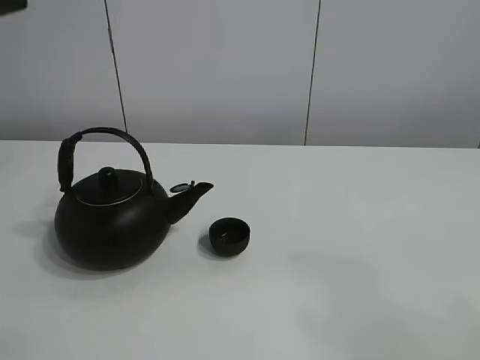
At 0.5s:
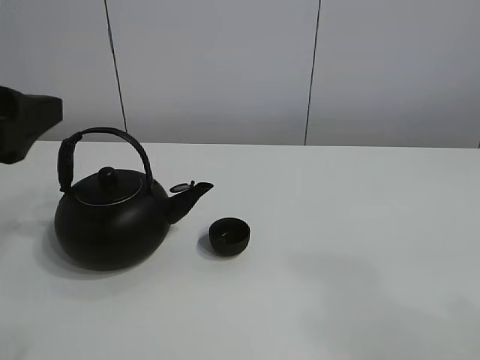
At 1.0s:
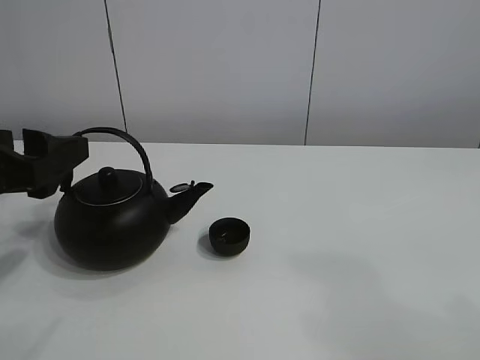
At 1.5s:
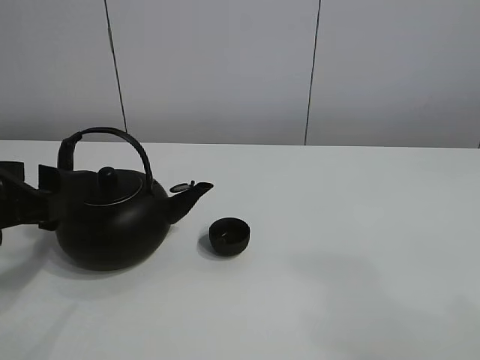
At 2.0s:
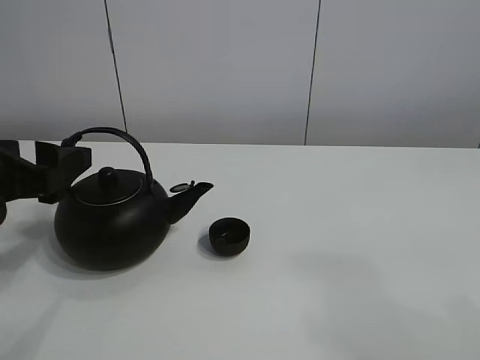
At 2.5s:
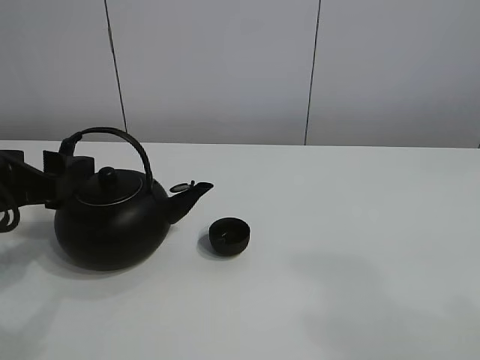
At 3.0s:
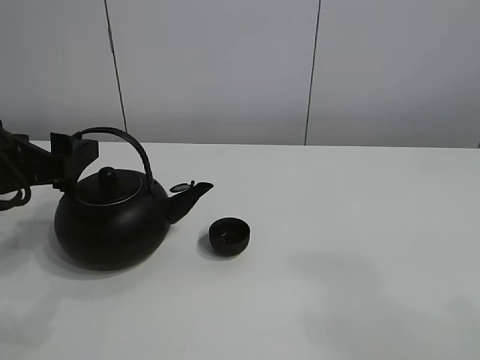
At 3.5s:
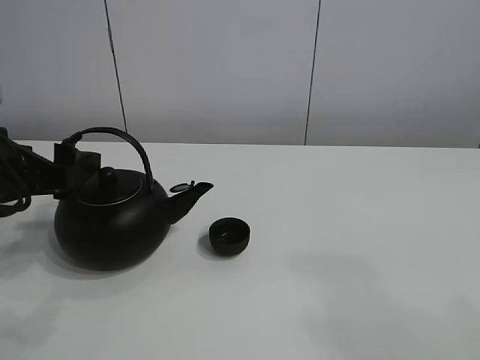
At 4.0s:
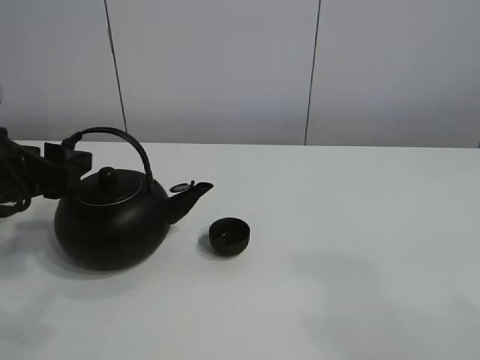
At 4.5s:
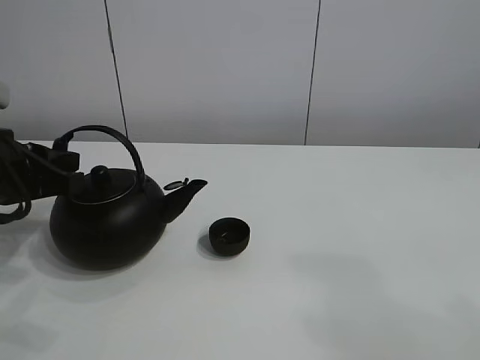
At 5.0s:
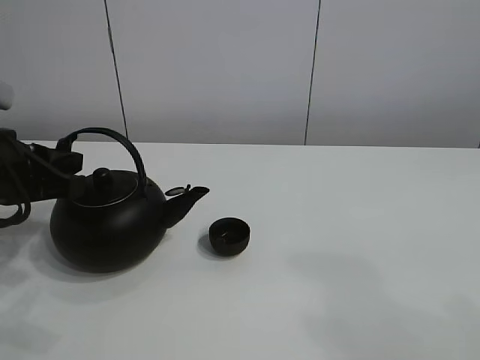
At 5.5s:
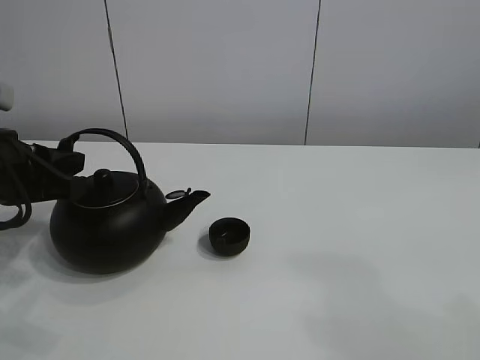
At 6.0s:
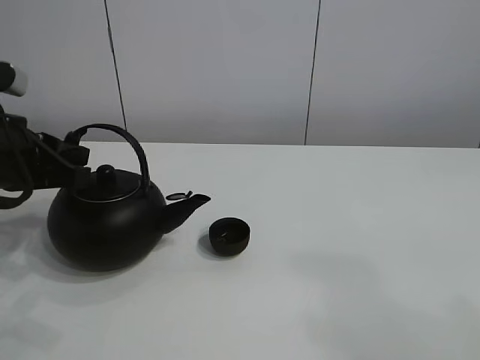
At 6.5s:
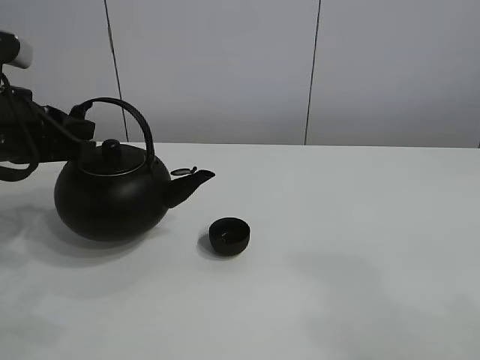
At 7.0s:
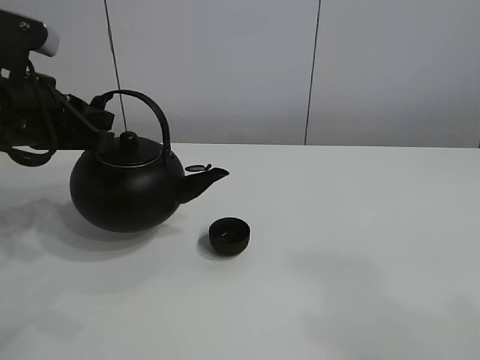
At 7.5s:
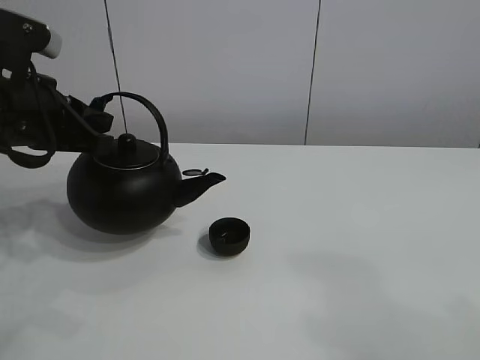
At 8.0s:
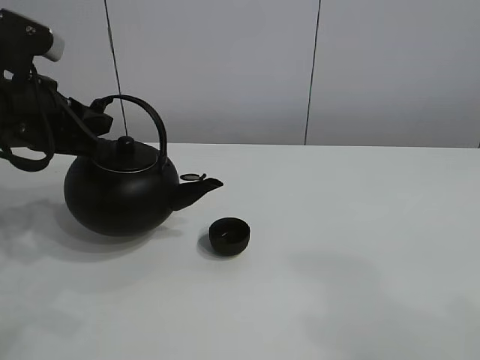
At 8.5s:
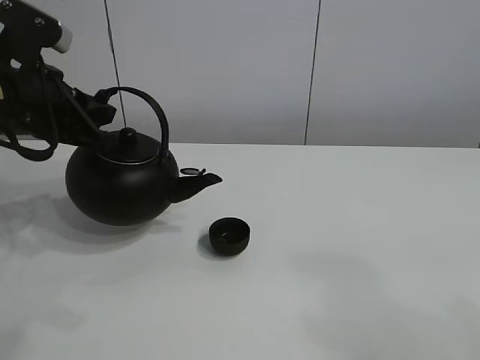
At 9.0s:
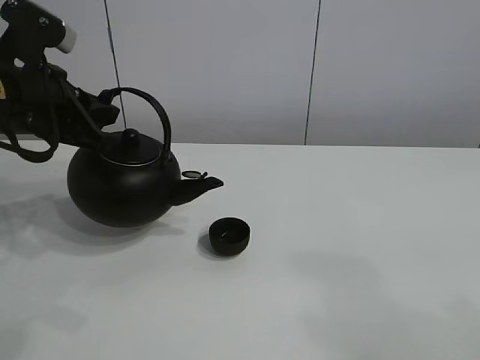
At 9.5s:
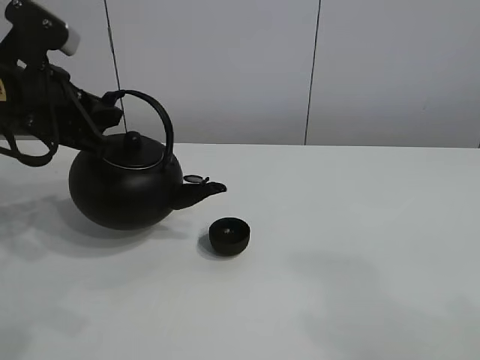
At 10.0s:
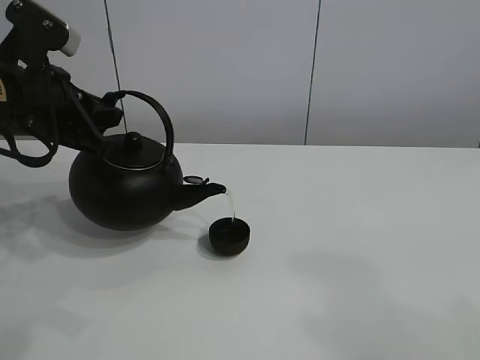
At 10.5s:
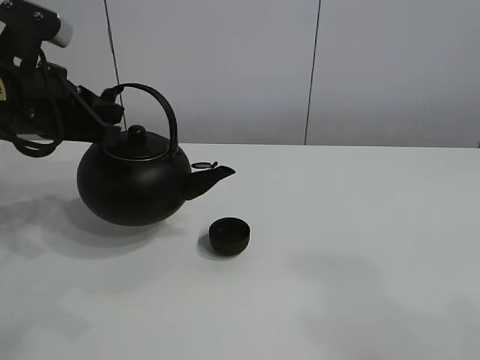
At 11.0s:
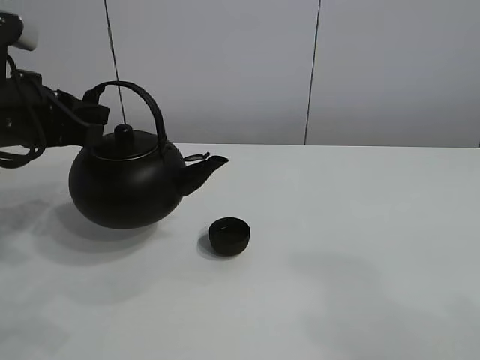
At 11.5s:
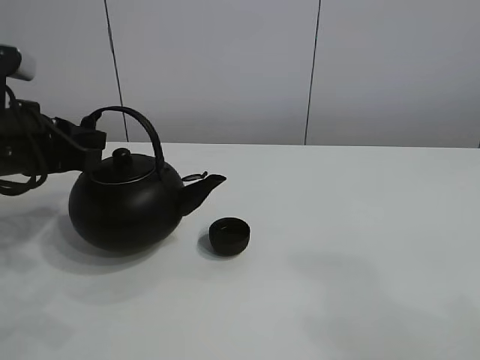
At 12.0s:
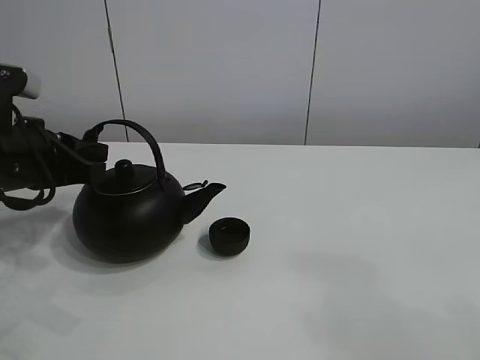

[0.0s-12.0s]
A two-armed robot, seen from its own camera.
Task of the whole recording: pour tea into the teacup.
Step, 0.0s to 6.0s: Pick up the teapot with the left gripper.
Step, 6.5s to 10.0s: Pour tea into the teacup with the left gripper.
0.0s to 2.0s: The left gripper moves downward, some 15 cm.
2.0s to 4.0s: The left gripper closes up.
4.0s to 6.0s: The left gripper closes up.
6.0s to 10.0s: The grippers stay close to where they were, moving slightly.
10.0s to 12.0s: The left gripper travels downward by about 5 cm.

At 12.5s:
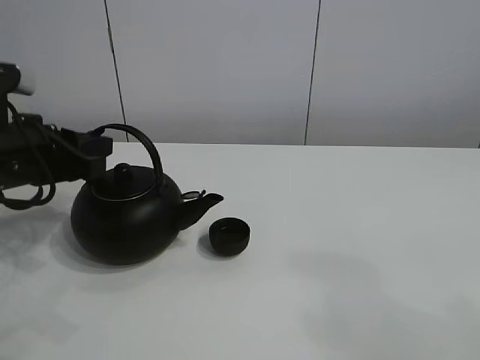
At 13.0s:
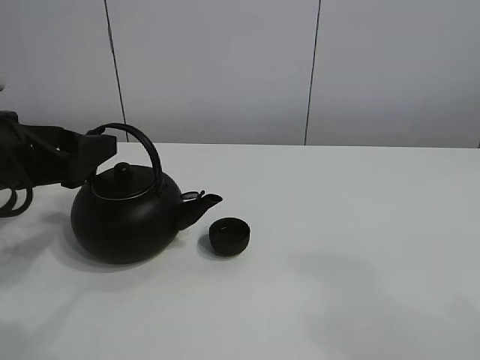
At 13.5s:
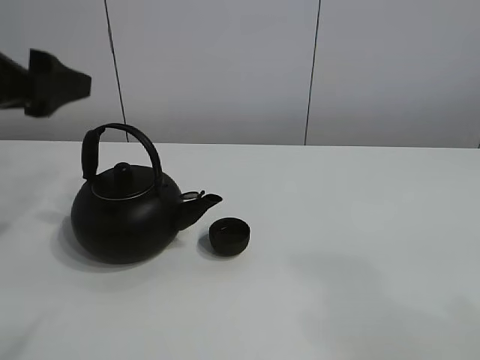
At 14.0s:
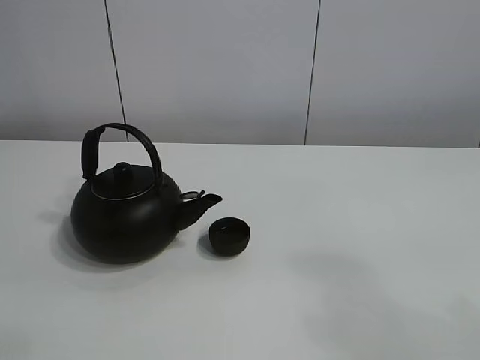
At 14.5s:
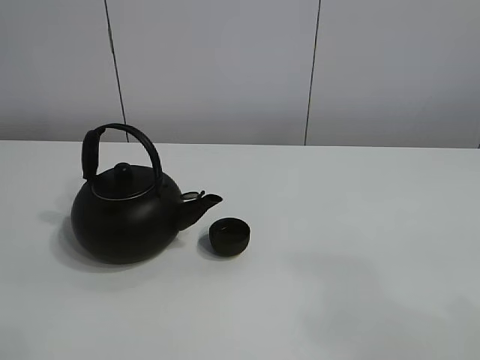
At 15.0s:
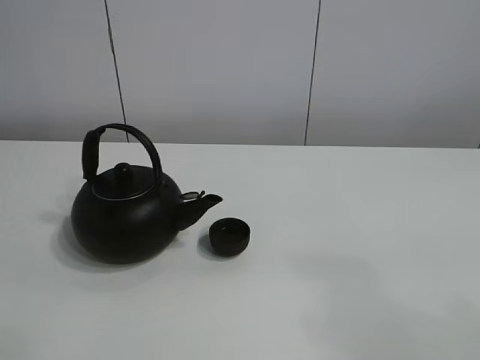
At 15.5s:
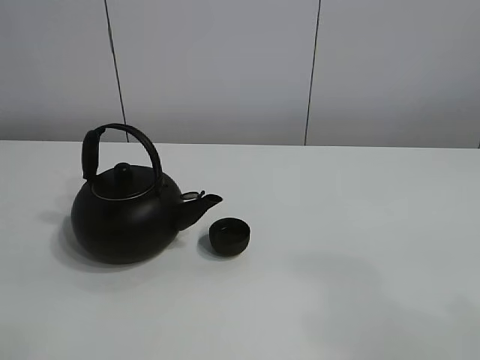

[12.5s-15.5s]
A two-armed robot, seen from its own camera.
Task of the whole recording: pour tea into the teacup.
12.5s to 14.0s: The left gripper shifts some 25 cm upward, and opens.
